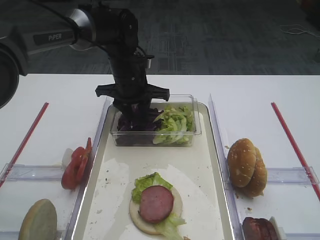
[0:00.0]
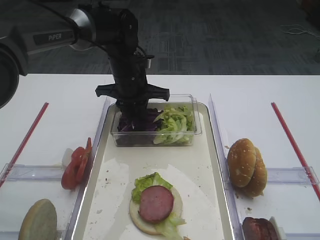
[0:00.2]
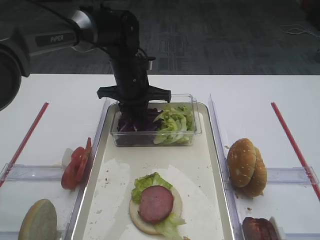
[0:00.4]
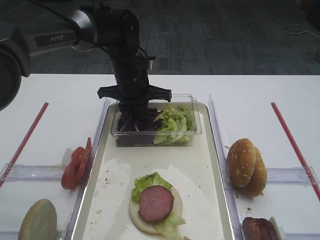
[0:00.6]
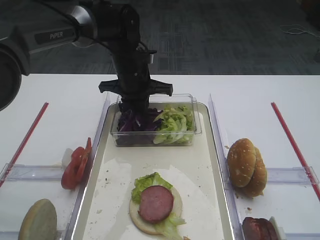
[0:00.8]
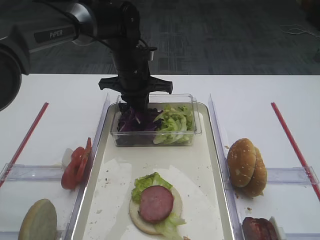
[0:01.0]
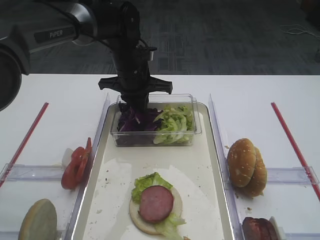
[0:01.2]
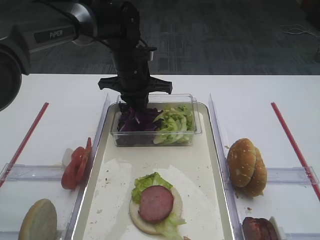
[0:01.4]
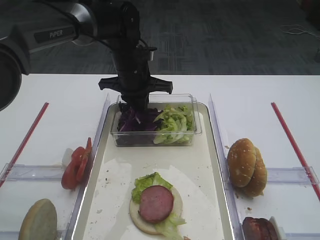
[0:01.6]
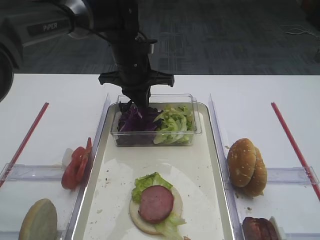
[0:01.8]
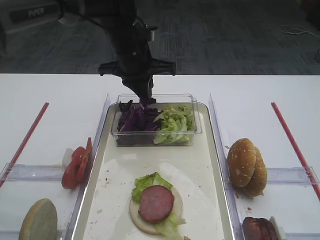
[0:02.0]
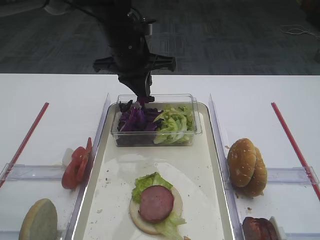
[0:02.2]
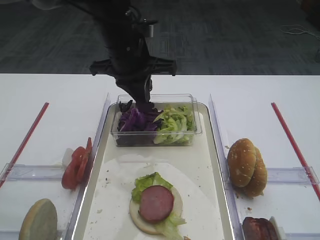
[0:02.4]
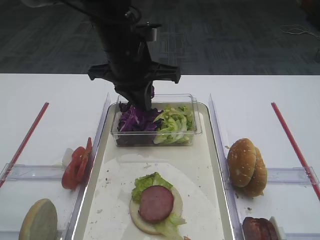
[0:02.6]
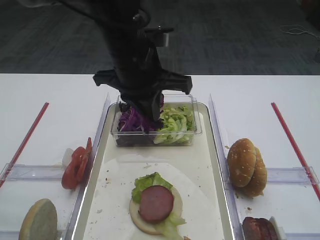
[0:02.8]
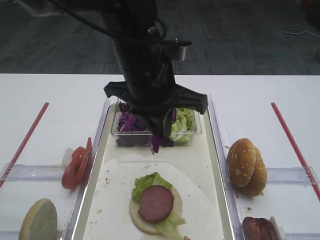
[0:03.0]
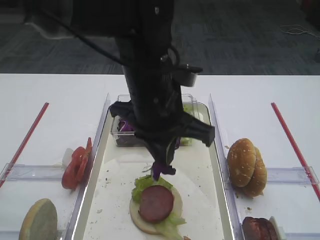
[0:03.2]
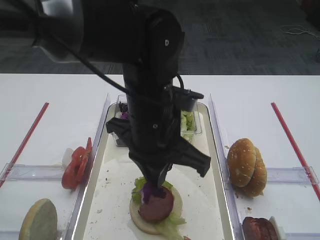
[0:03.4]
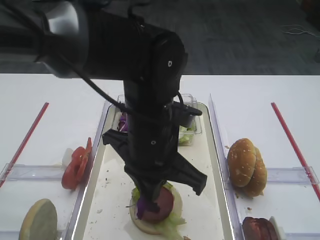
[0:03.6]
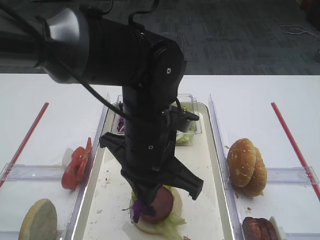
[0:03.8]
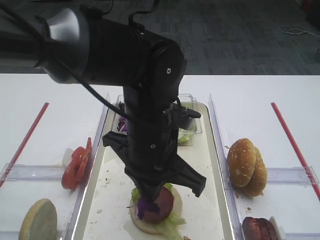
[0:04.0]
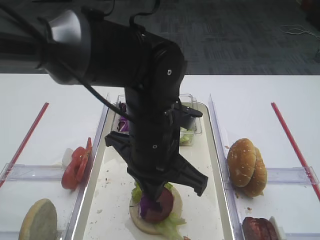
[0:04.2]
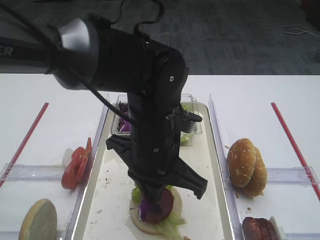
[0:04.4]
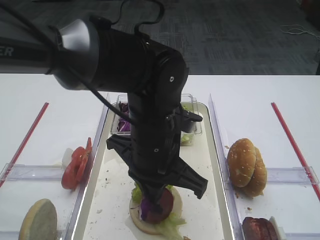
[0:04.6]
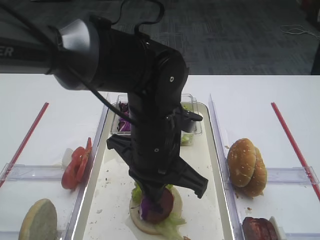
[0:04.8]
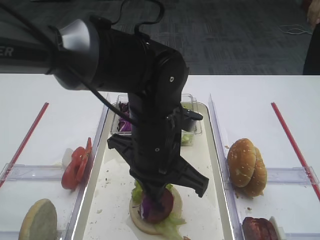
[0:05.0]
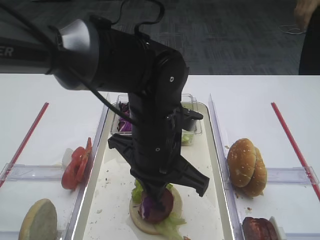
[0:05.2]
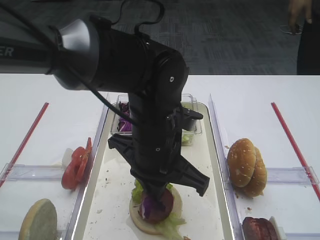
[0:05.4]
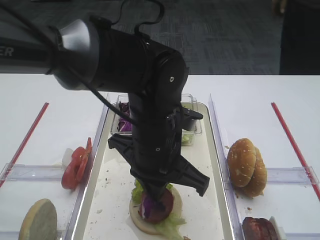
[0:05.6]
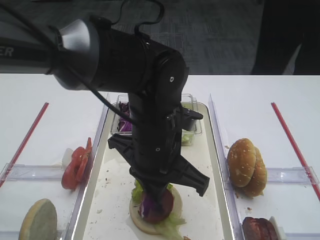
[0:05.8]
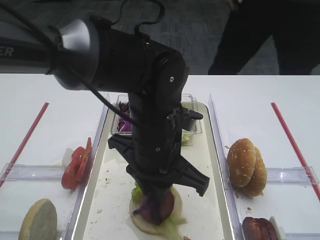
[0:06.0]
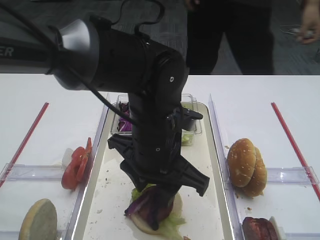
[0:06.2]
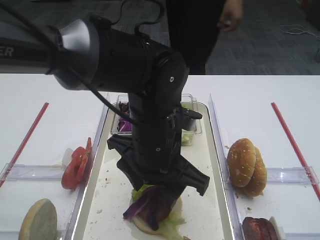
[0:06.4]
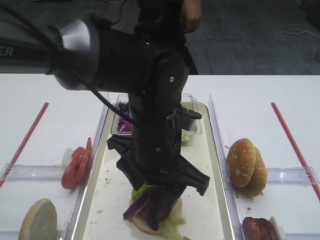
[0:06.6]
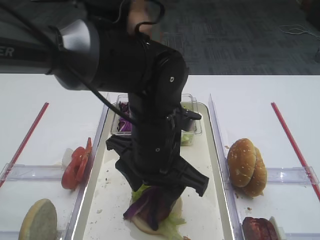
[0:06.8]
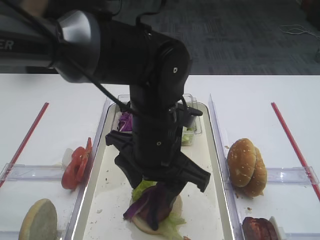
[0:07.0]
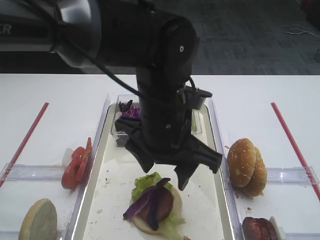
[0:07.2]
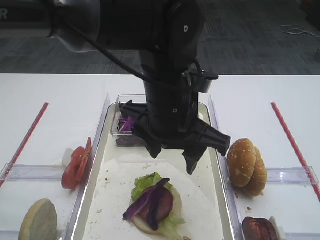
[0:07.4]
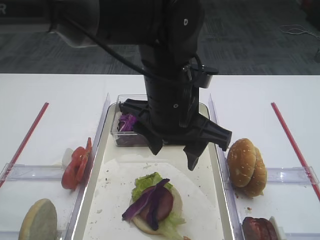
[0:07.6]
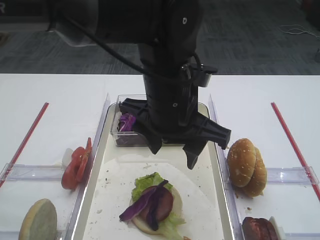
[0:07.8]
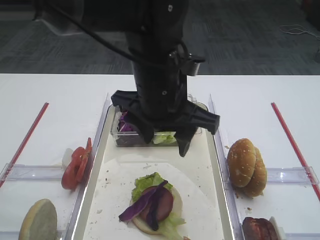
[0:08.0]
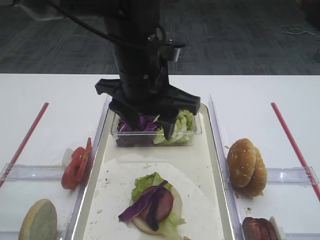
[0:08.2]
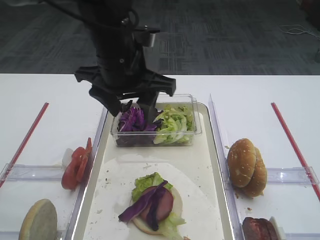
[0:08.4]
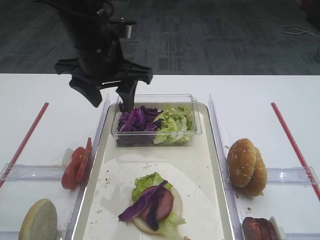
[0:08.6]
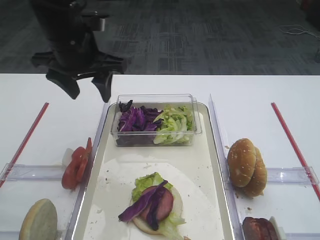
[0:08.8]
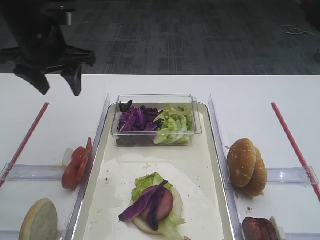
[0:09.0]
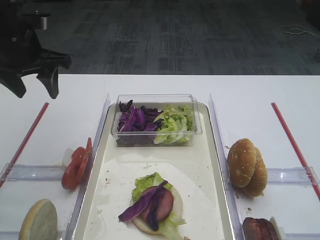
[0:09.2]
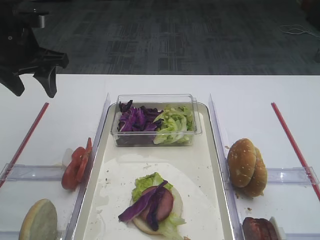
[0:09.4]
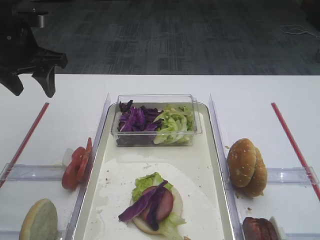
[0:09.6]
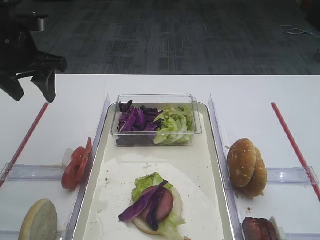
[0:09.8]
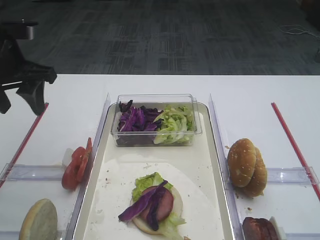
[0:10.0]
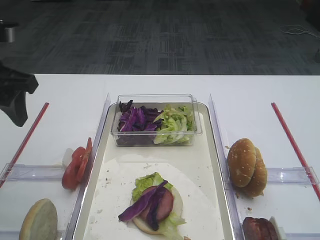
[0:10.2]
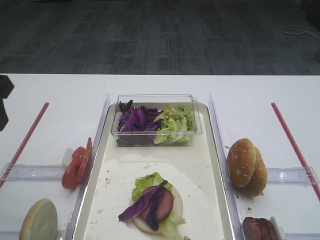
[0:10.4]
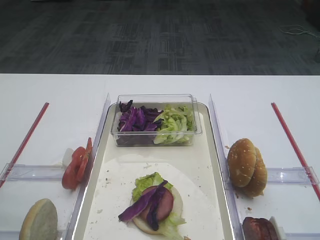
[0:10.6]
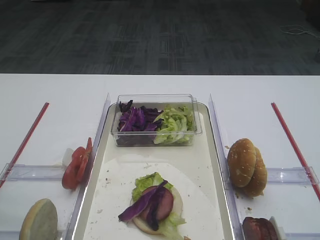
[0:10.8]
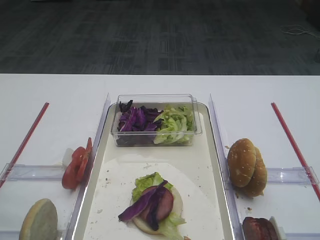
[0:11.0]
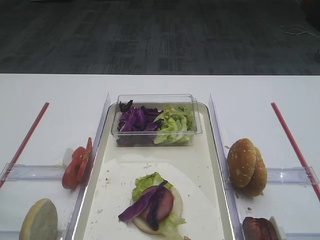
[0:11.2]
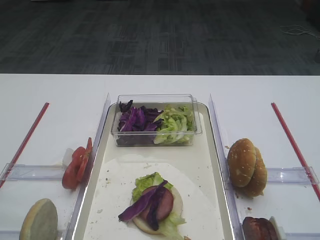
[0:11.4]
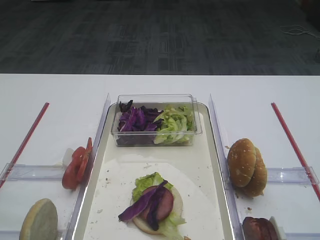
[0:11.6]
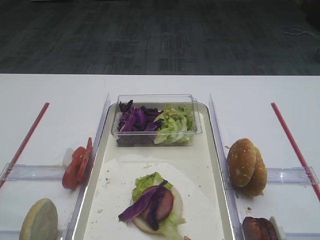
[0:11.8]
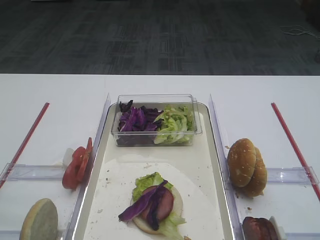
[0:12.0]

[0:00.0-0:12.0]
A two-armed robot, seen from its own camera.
Step, 0:00.0 to 0:02.0: Pick up the purple cabbage with the left gripper.
Step, 0:02.2 to 0:07.8: Place the purple cabbage on the cutlet with the left gripper.
0:00.0 to 0:01.6: The left gripper closes its fingers.
0:01.6 to 0:03.0: The left gripper shifts about 15 cm backward and upward.
0:03.0 to 0:04.4: The left gripper is displaced downward and backward by approximately 10 cm.
0:04.4 to 0:06.0: The left gripper opens its fingers.
0:06.0 to 0:07.6: The left gripper heads upward, covering approximately 5 cm, and opens its fingers.
0:07.6 to 0:09.0: The left gripper is displaced to the left and forward by roughly 25 cm.
0:09.0 to 0:10.4: The left gripper moves backward and to the left, approximately 15 cm.
0:10.4 to 0:12.0: The left gripper goes about 25 cm backward.

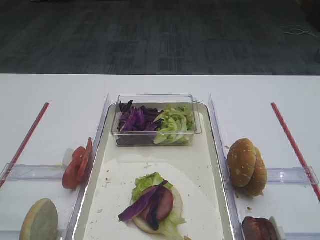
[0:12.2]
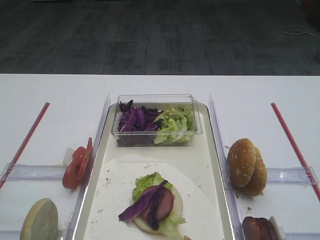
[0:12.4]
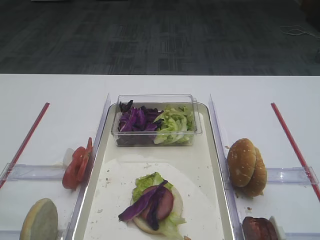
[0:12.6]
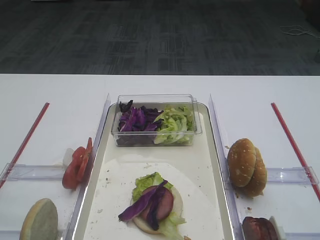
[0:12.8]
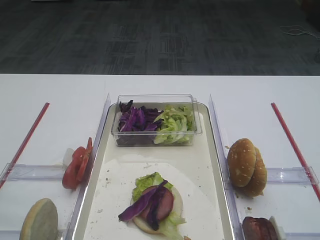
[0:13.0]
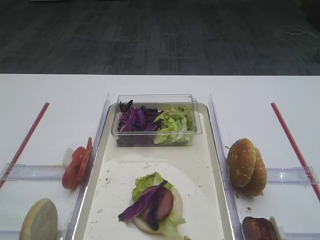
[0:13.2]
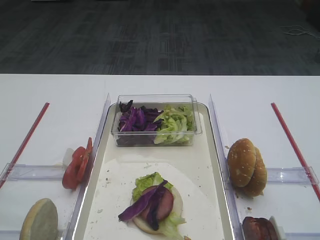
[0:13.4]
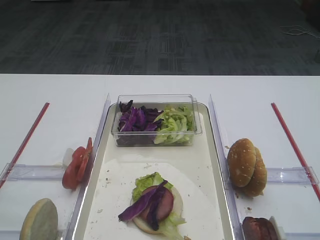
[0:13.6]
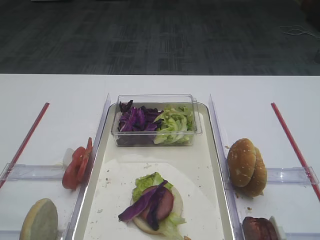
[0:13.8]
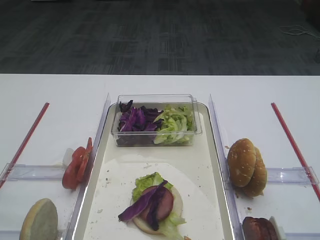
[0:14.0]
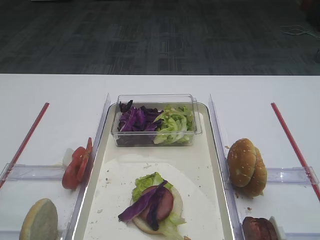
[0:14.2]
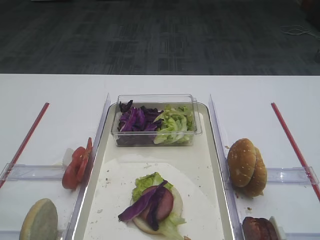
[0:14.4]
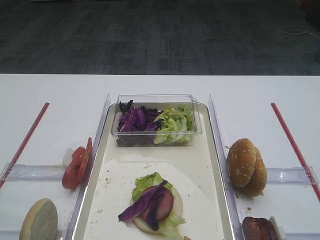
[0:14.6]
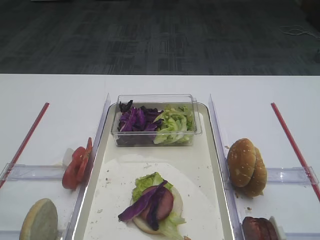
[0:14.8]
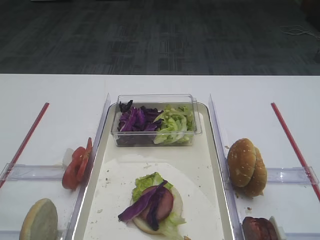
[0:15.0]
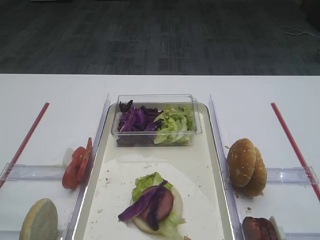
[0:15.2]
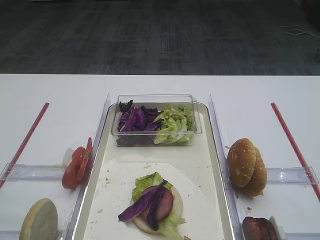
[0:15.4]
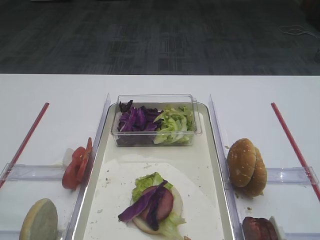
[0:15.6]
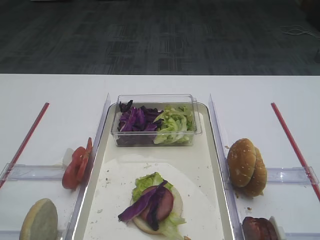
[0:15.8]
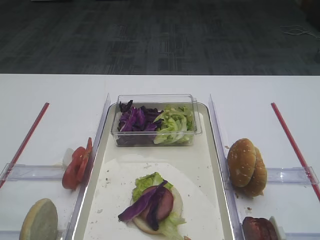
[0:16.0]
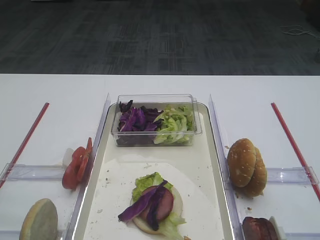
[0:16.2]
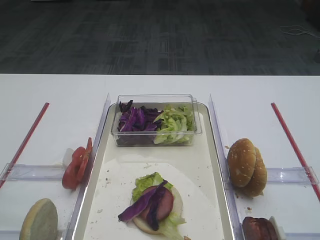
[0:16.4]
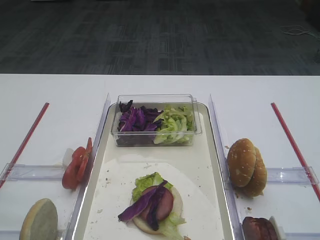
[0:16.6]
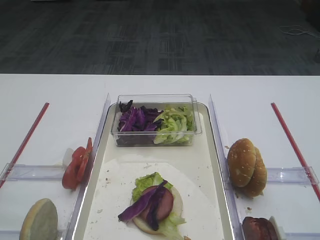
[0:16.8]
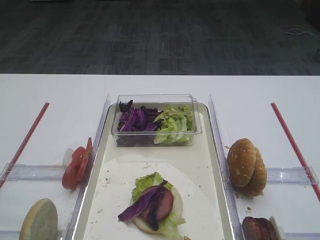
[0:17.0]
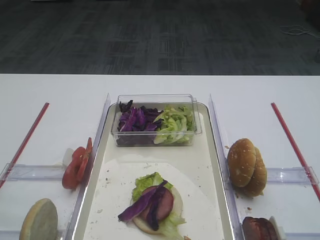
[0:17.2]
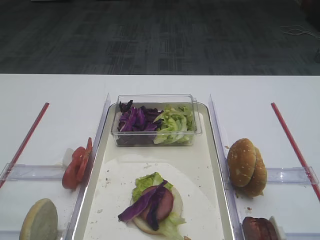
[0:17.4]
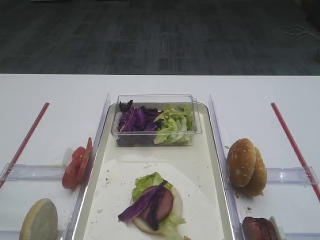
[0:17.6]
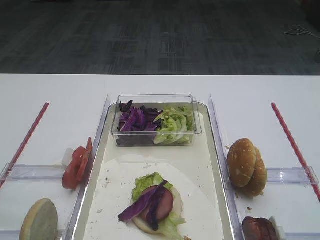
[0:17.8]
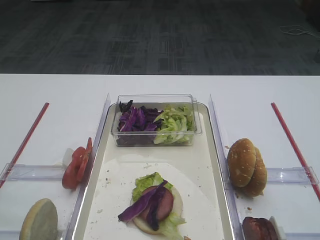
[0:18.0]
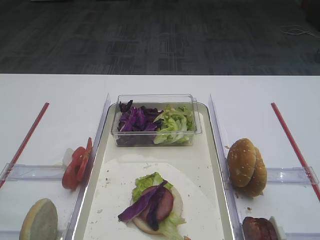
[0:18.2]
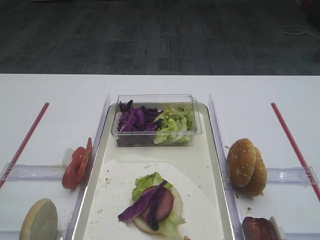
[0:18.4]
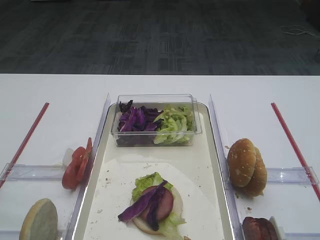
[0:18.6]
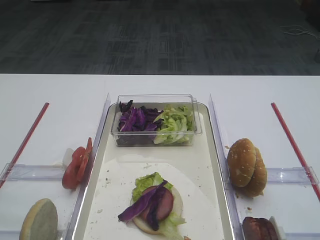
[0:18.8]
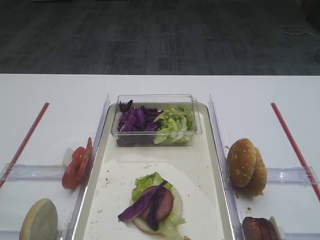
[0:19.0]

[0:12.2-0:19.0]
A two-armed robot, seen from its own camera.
0:13.6 to 0:17.6: The two grippers keep their place.

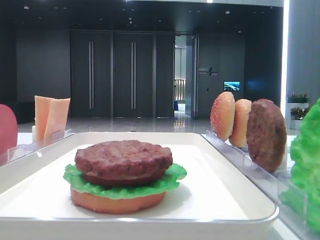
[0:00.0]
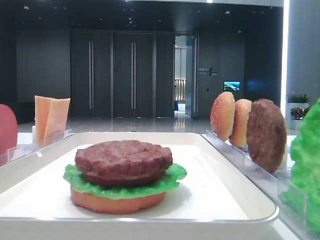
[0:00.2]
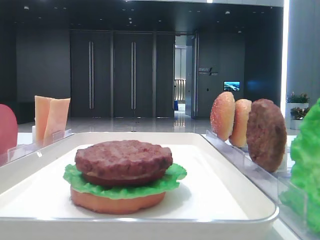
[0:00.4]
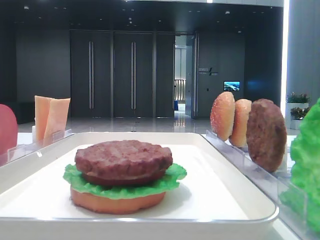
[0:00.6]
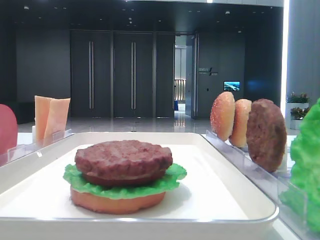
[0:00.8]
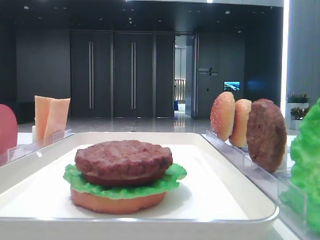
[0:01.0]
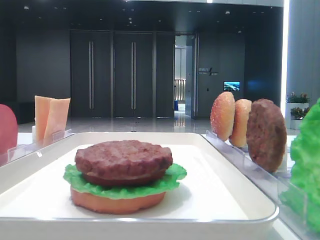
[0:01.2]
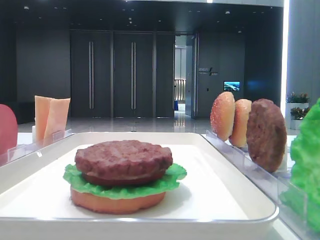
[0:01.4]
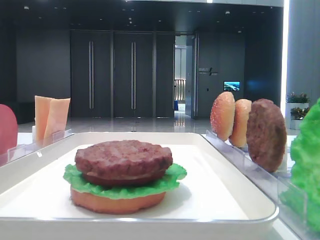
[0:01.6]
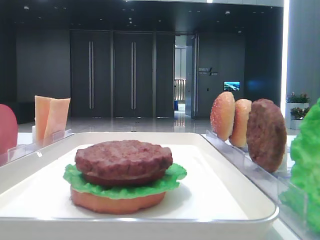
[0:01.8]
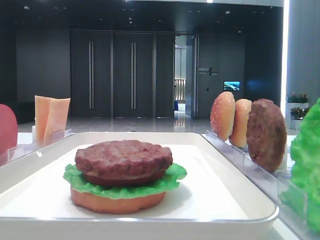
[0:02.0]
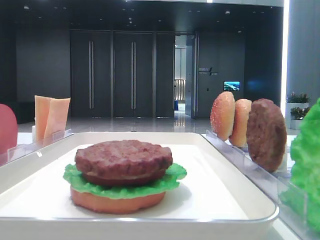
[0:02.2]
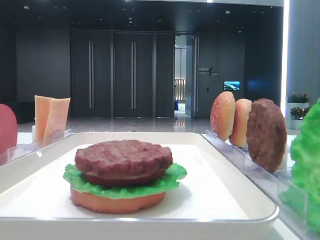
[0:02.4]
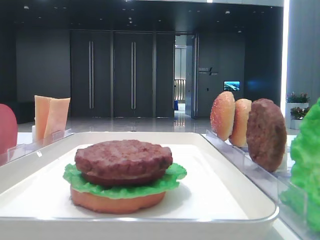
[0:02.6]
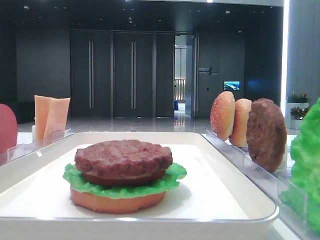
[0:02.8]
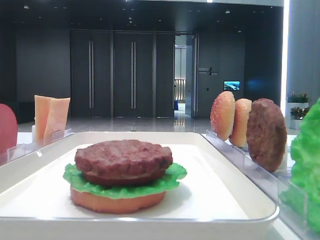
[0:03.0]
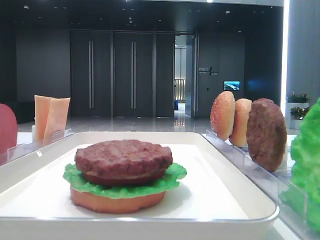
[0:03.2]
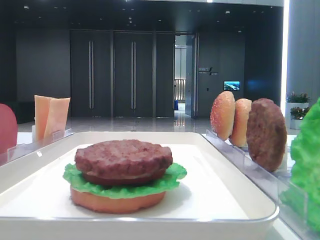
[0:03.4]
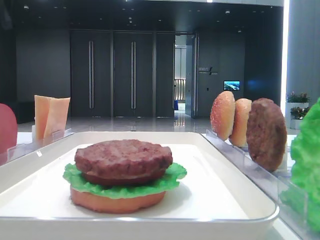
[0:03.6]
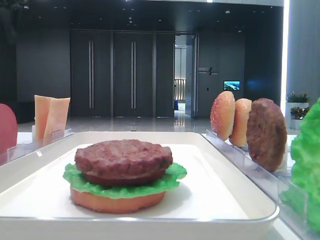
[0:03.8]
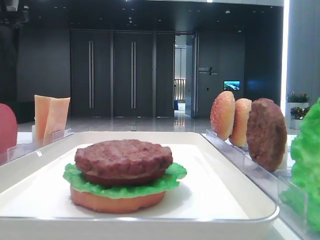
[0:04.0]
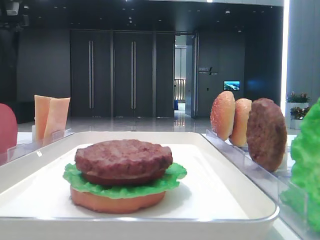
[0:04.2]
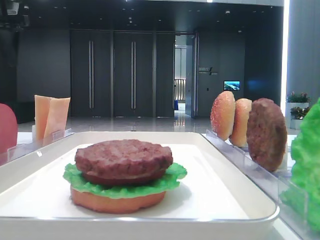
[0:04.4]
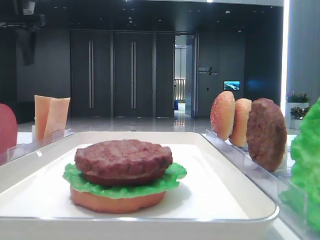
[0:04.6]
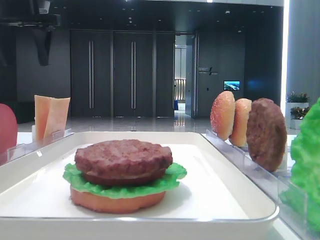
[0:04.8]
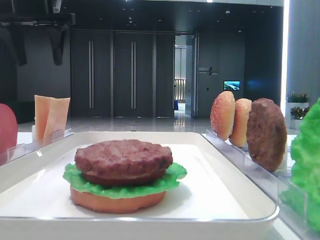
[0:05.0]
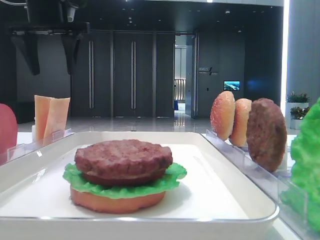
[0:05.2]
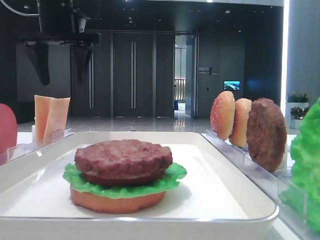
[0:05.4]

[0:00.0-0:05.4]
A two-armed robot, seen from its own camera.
0:04.0 to 0:05.4: The left gripper heads to the right, covering roughly 15 cm.
